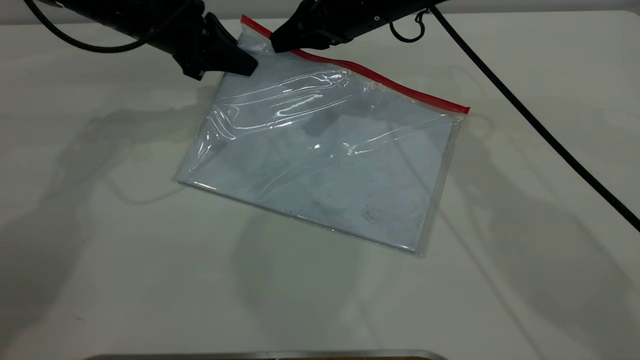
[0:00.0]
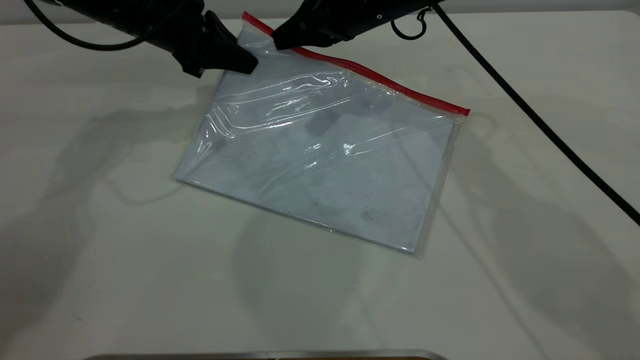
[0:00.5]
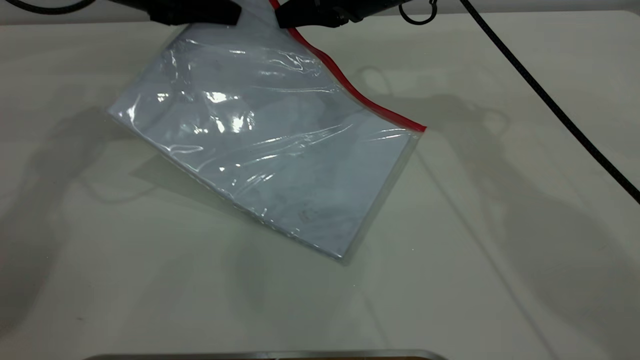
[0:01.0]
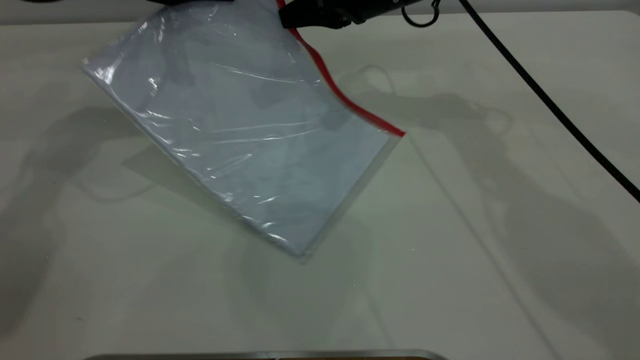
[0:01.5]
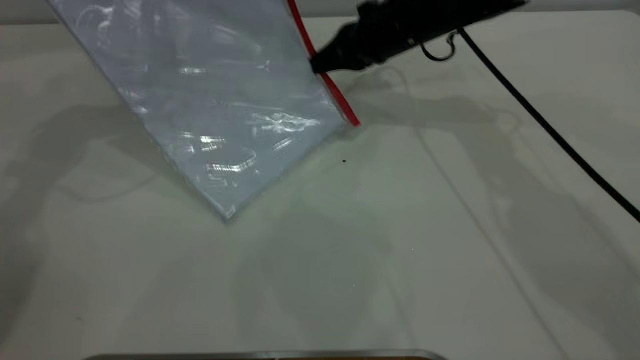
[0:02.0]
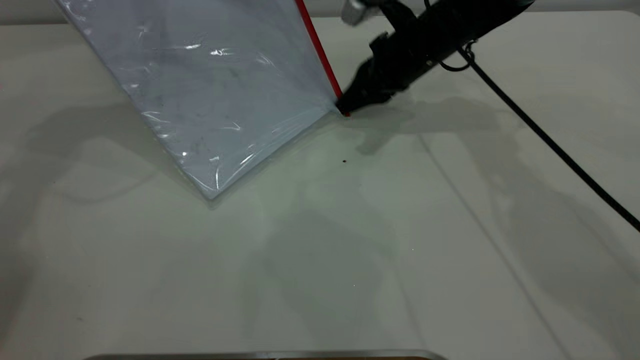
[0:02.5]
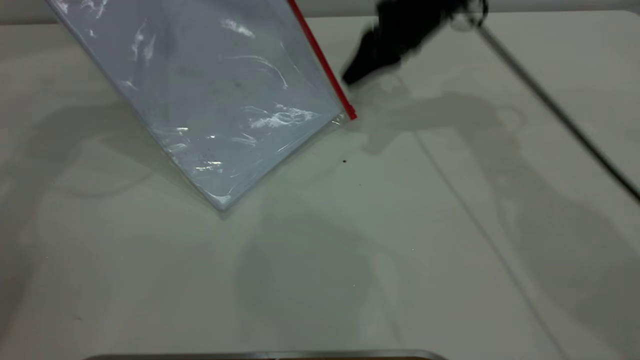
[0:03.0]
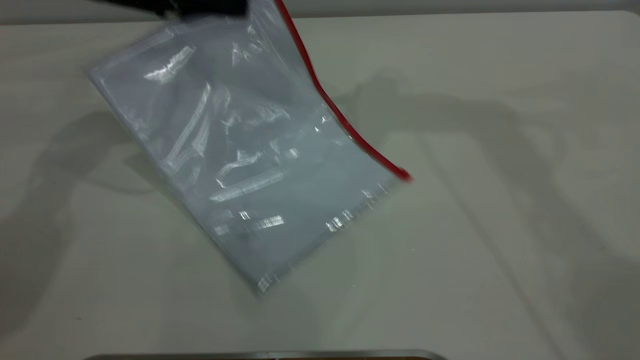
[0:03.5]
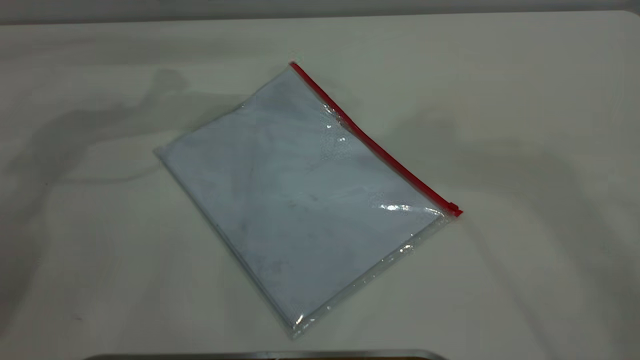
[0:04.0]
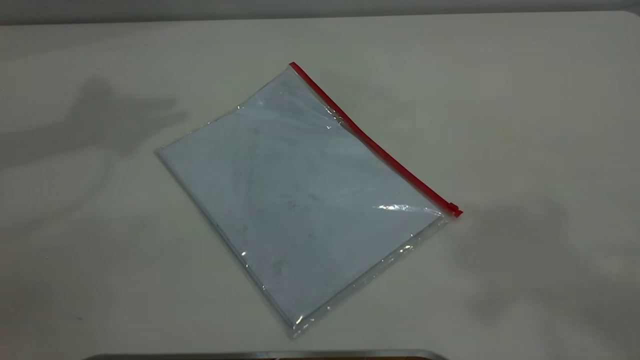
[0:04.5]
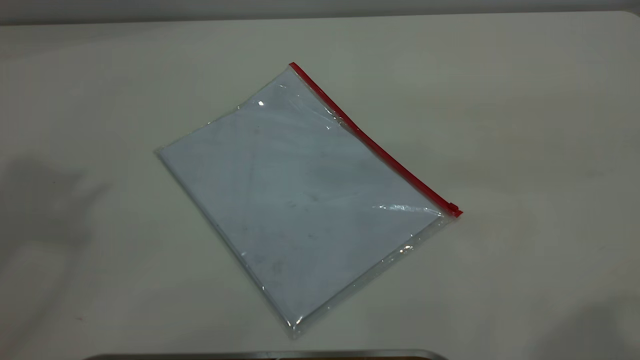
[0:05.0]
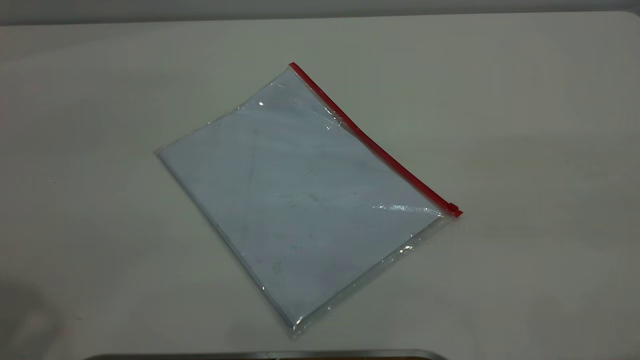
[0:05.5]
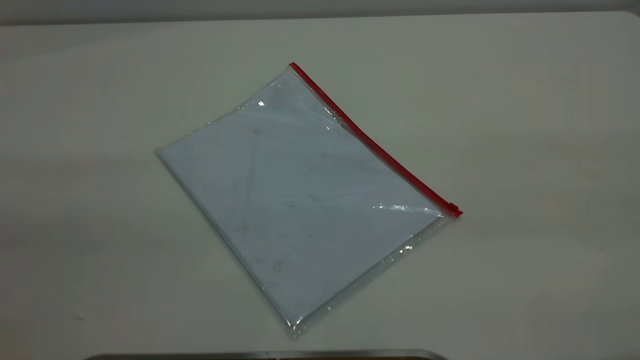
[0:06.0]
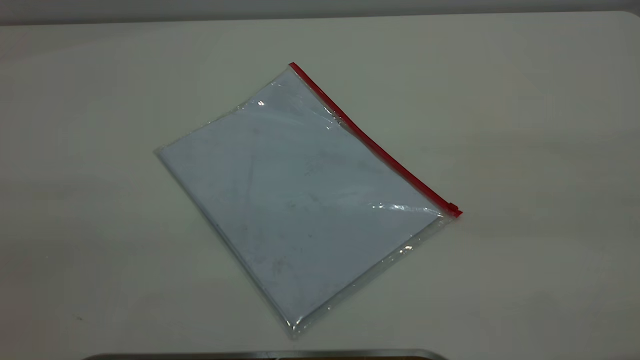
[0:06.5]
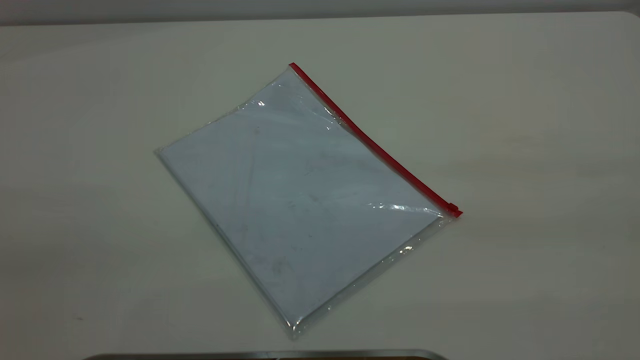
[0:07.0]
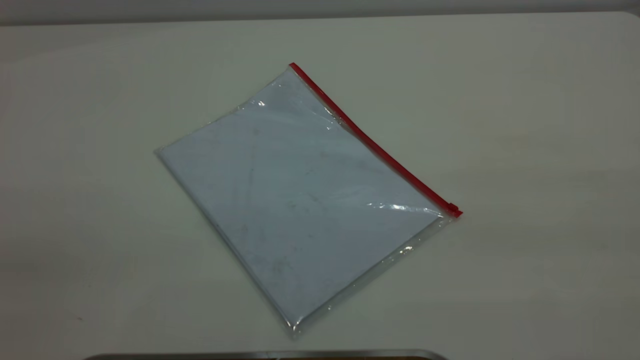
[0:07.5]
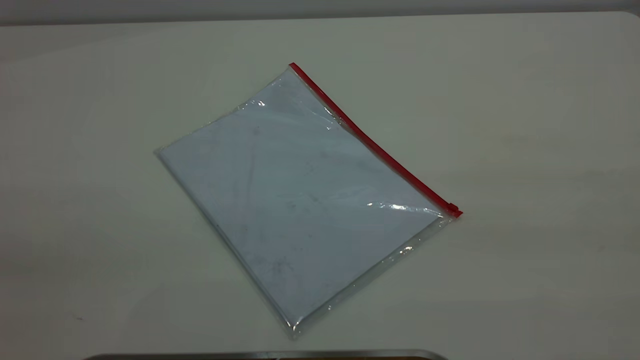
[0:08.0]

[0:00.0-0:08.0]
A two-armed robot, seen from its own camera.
Step, 0:00.0 to 0:03.0: Pulling up the zipper on the transparent plastic bag with the right gripper to close it.
0:00.0 to 0:02.0: The right gripper ends up approximately 5 cm from where it was. Meanwhile the left gripper goes some 10 cm upward.
0:02.0 to 0:04.0: The left gripper travels downward and back again, roughly 10 cm each way, and opens its fingers. Meanwhile the right gripper heads upward, covering some 40 cm, and opens.
0:04.0 to 0:06.0: The left gripper heads backward, covering approximately 40 cm.
